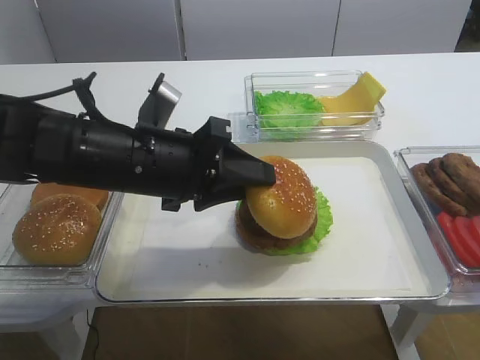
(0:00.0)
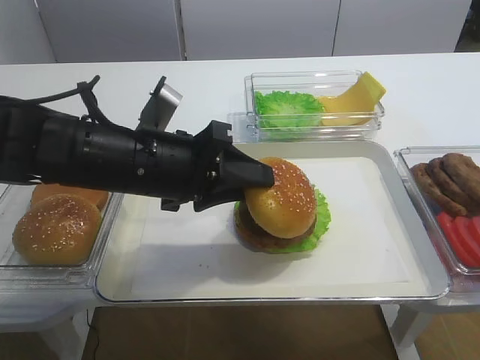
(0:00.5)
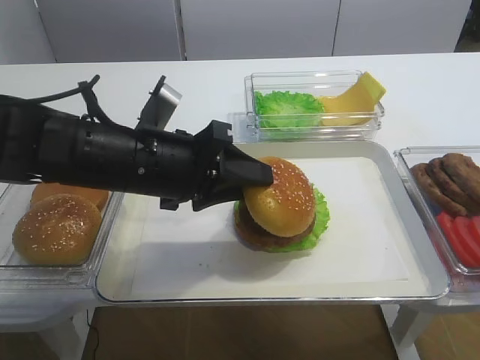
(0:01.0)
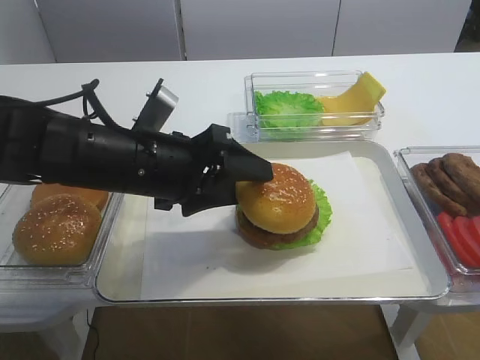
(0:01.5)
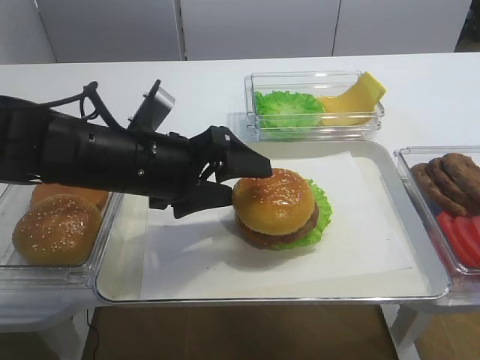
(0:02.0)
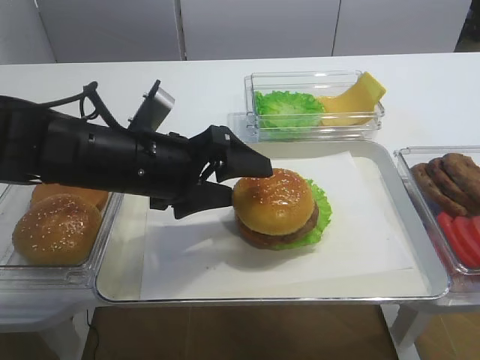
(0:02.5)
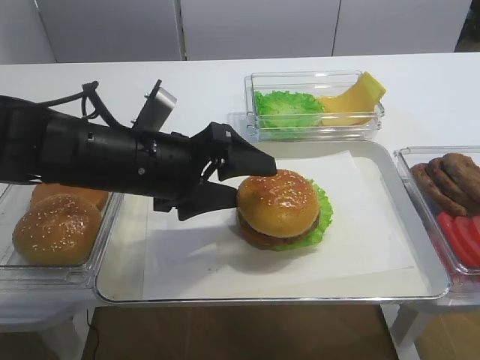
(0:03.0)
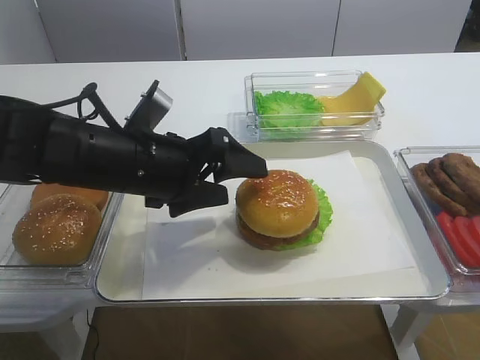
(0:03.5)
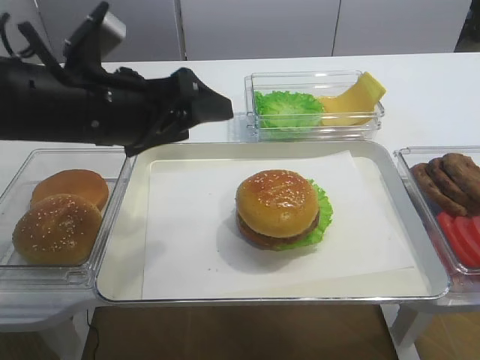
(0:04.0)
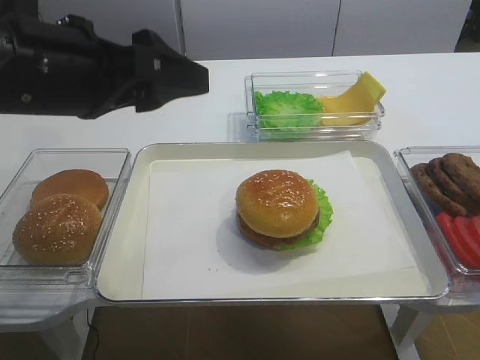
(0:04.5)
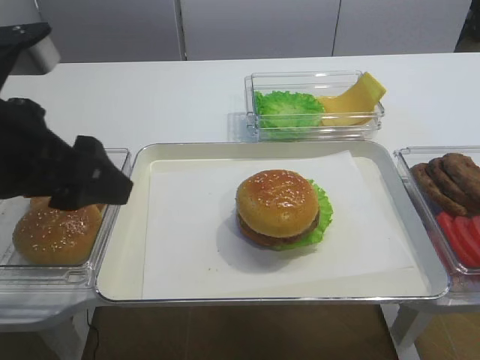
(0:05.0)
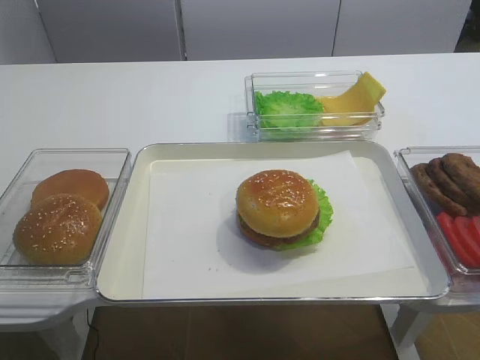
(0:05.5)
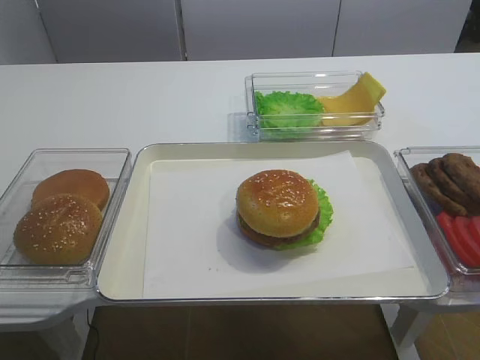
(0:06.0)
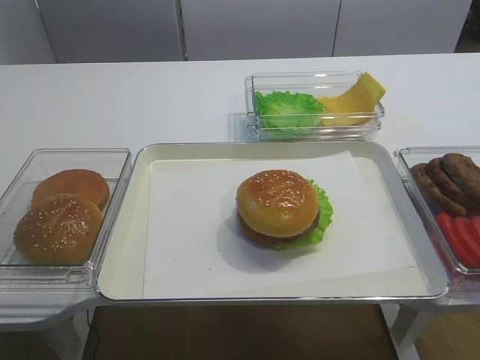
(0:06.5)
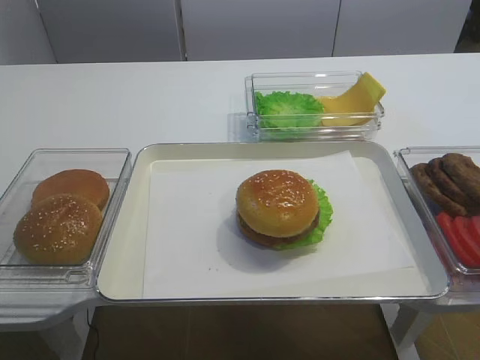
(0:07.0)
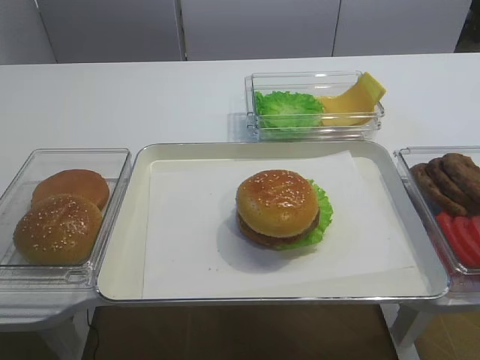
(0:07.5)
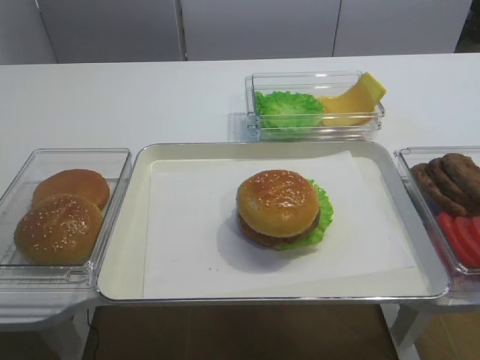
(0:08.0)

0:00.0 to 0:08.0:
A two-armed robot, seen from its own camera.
Step, 0:00.0 to 0:03.5: Place the hamburger lid on the cutlet slice with the left gripper.
0:00.0 to 0:02.0: The left gripper opens up.
0:02.0 to 0:04.0: The left gripper is displaced upward by roughly 5 cm.
0:04.0 to 0:06.0: The left gripper heads backward and to the left, covering roughly 30 cm.

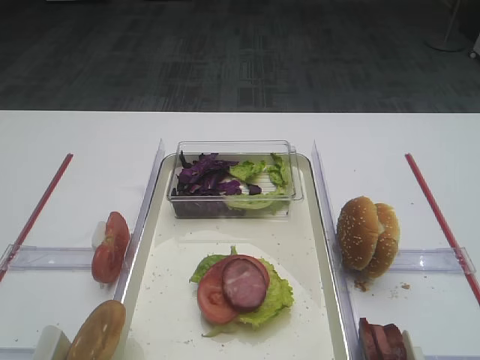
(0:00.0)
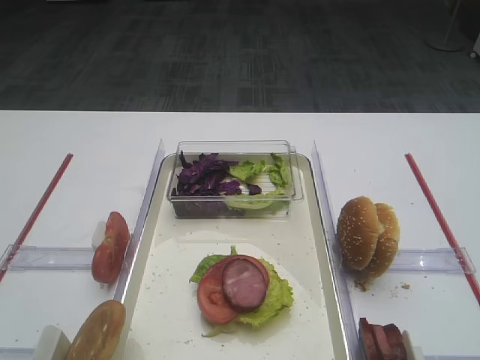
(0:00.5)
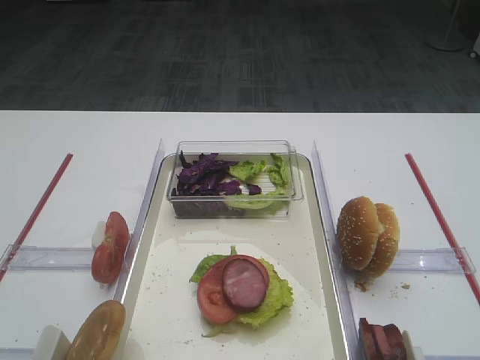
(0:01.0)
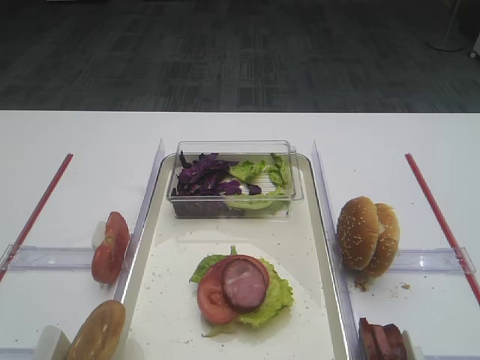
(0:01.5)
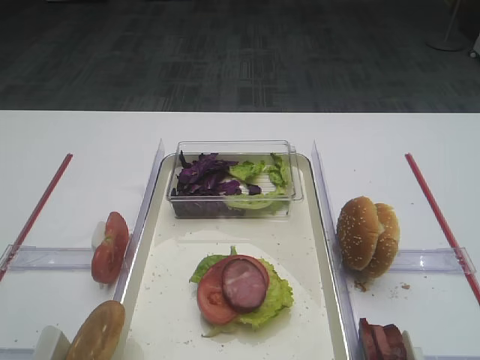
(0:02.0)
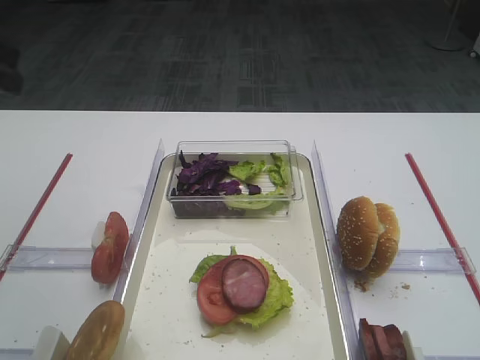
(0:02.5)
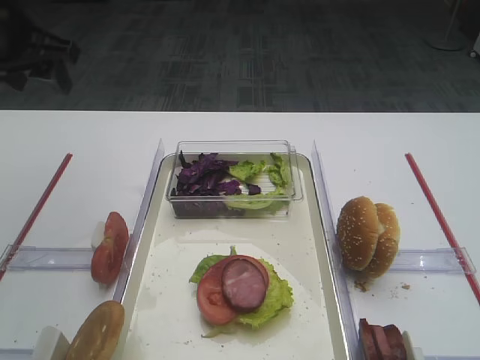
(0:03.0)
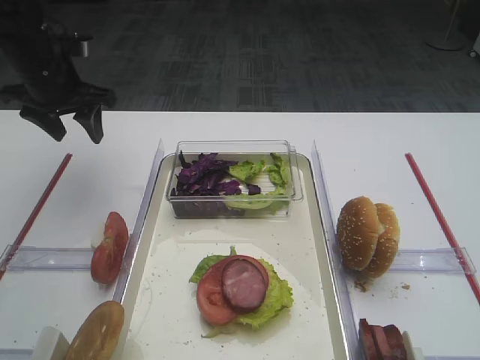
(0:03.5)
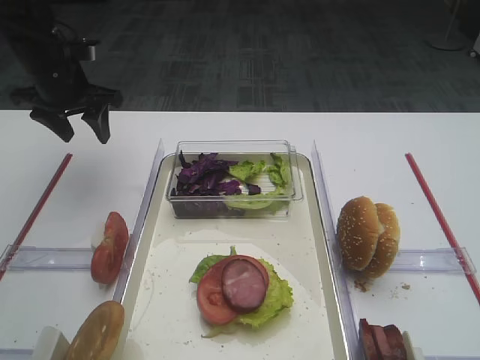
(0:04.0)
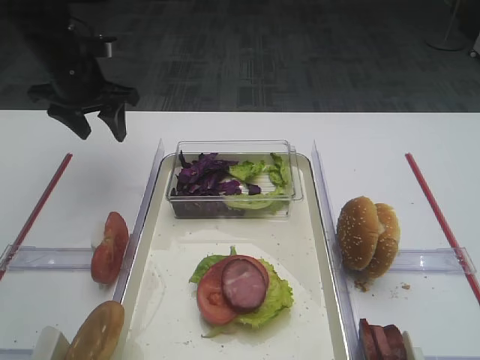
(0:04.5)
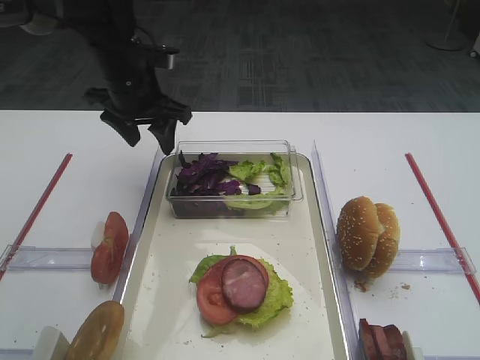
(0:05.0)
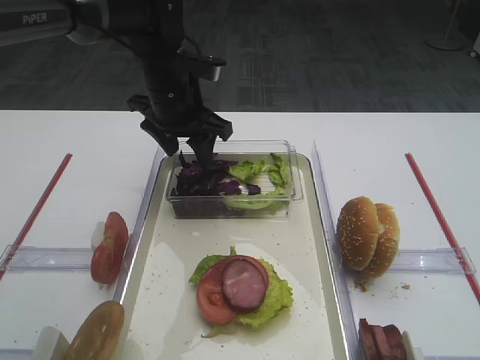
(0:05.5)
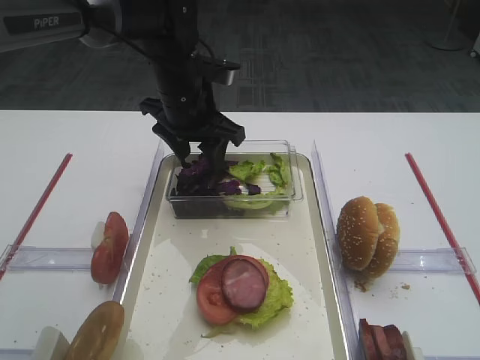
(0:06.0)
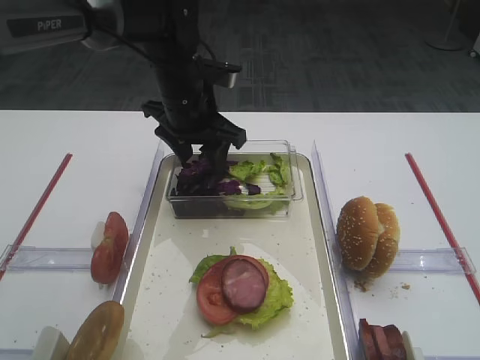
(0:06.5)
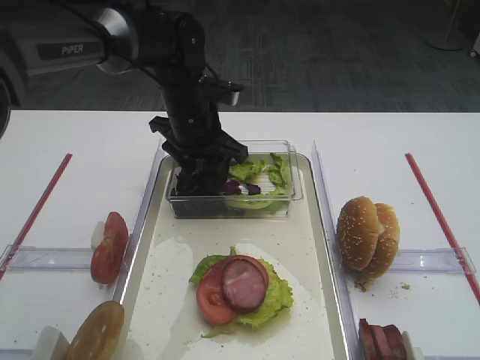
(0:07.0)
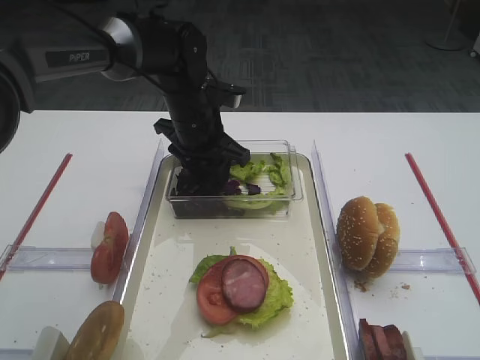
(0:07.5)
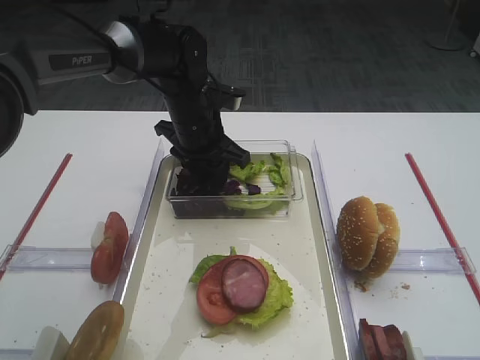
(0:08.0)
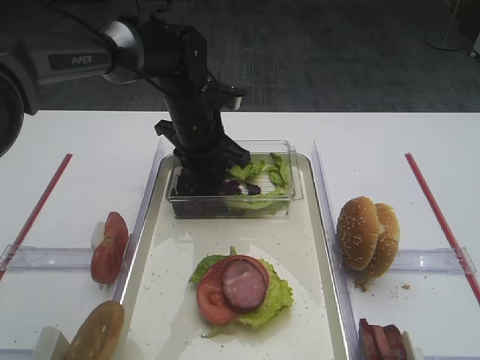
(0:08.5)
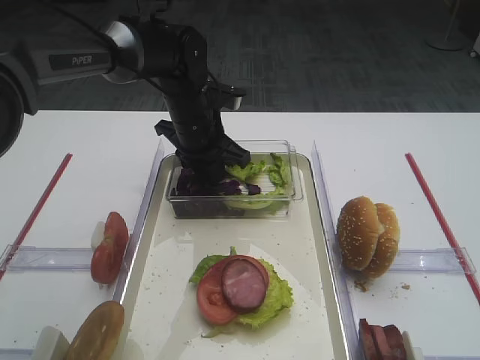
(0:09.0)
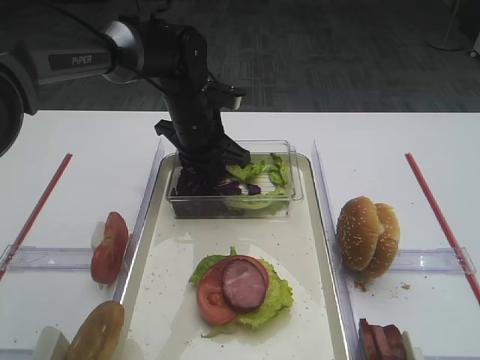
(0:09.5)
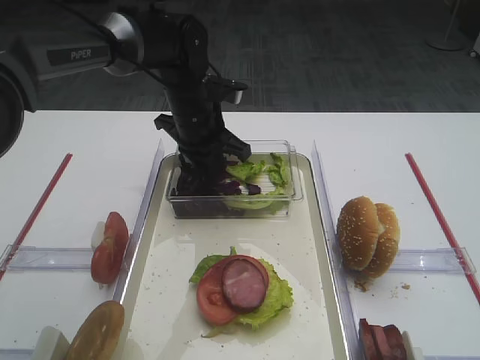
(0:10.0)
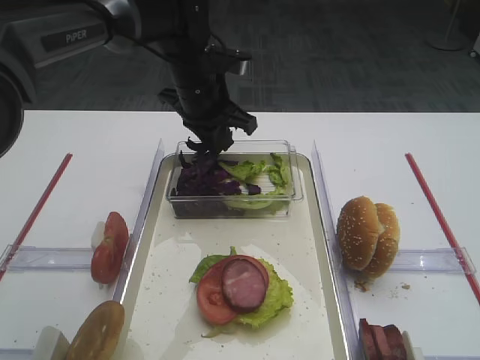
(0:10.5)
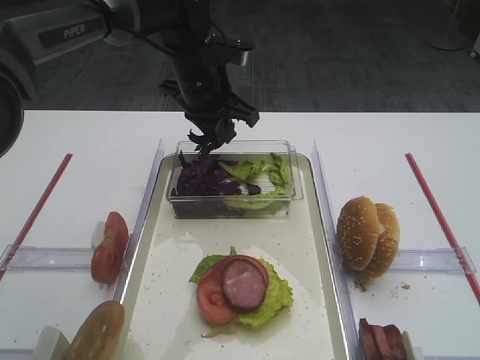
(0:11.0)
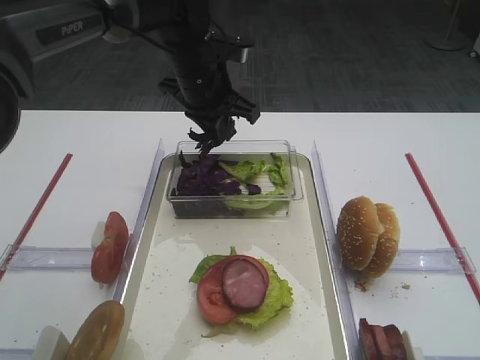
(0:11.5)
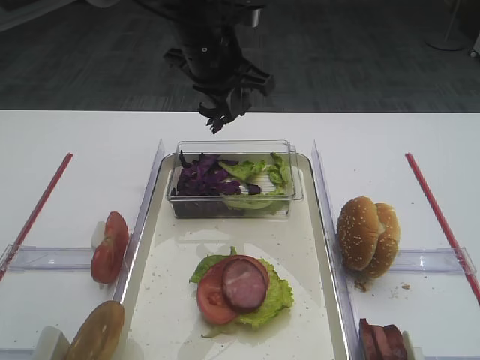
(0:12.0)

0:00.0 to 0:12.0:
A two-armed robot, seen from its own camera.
Step, 0:00.0 to 0:10.5: Pick up the purple cabbage with the left gripper.
0:02.0 to 0:04.0: The left gripper is displaced forward by about 35 cm.
0:04.0 to 0:06.0: The left gripper travels to the right by about 20 cm.
0:06.0 to 0:08.0: The left gripper goes approximately 5 cm downward.
0:08.0 to 0:10.0: The left gripper closes.
0:10.0 to 0:12.0: The left gripper travels upward by some 10 cm.

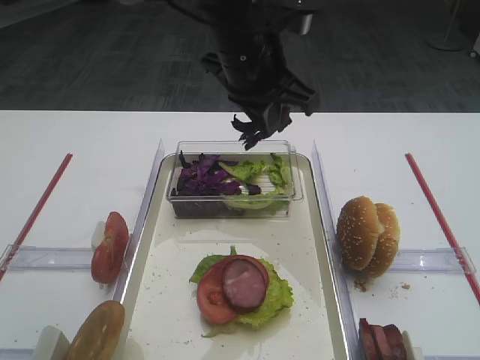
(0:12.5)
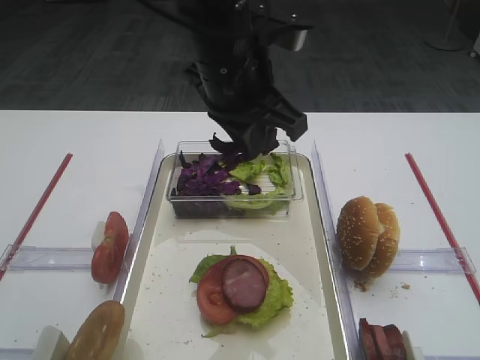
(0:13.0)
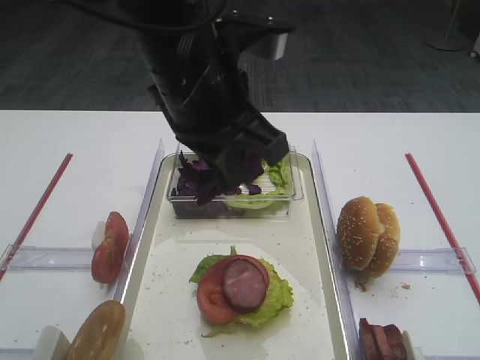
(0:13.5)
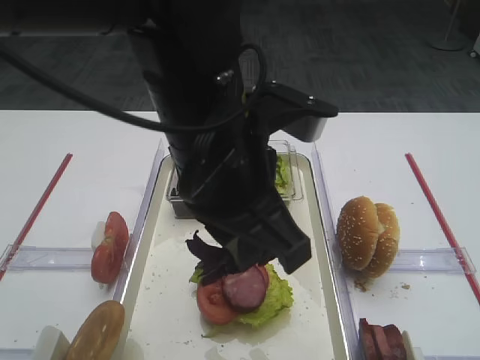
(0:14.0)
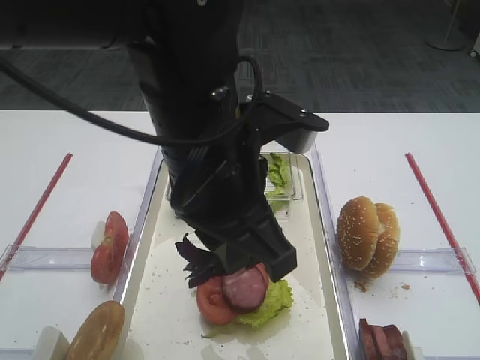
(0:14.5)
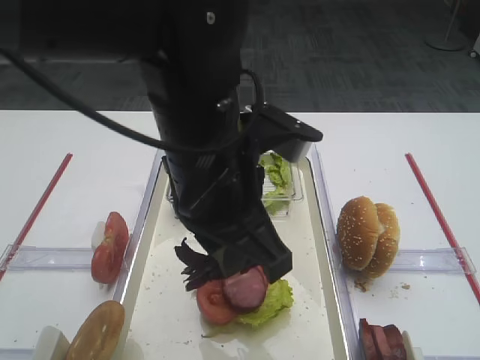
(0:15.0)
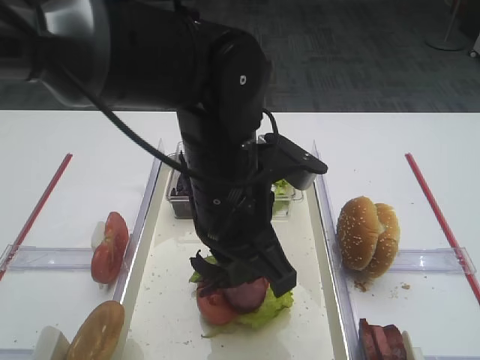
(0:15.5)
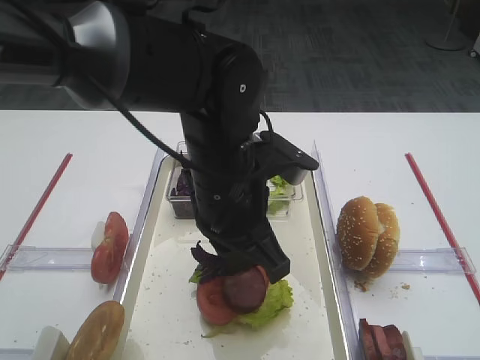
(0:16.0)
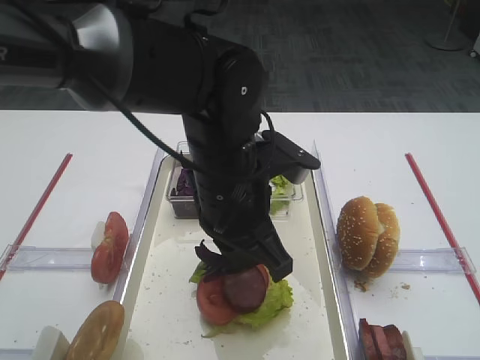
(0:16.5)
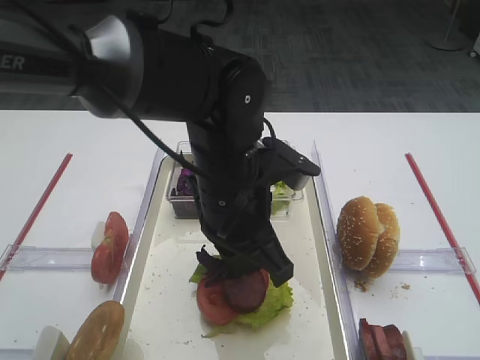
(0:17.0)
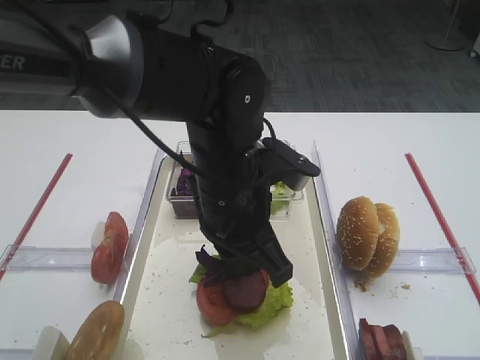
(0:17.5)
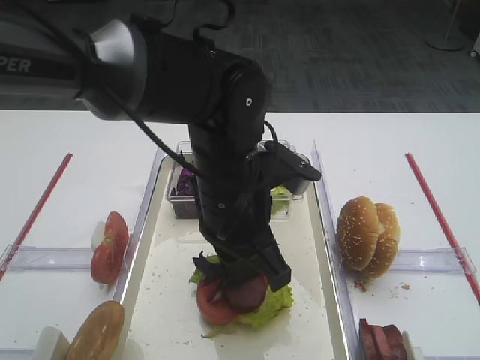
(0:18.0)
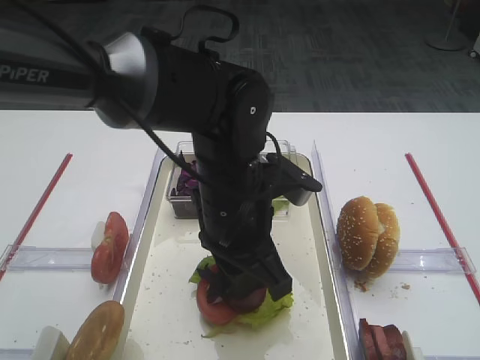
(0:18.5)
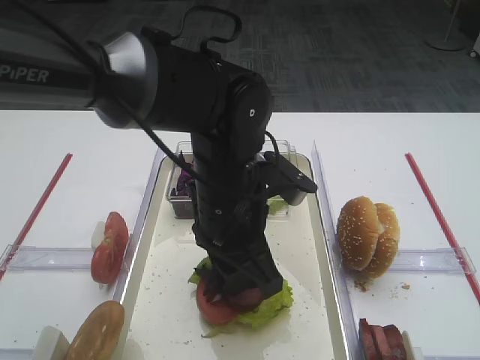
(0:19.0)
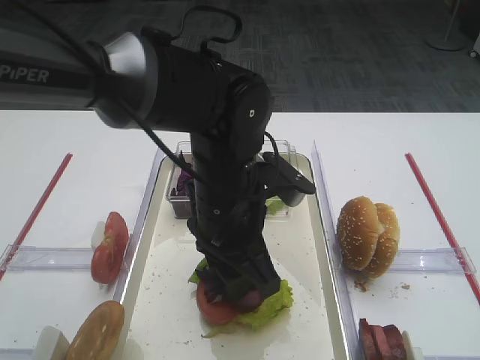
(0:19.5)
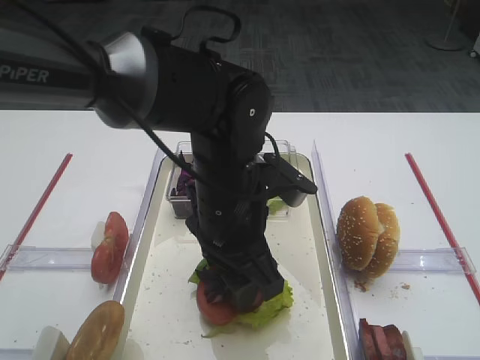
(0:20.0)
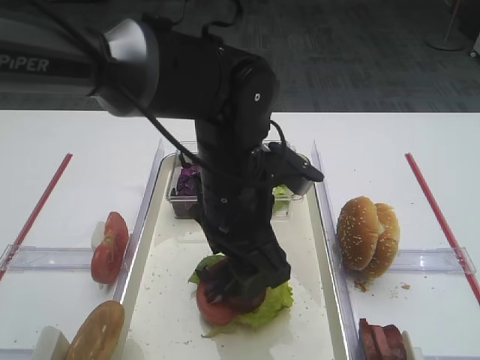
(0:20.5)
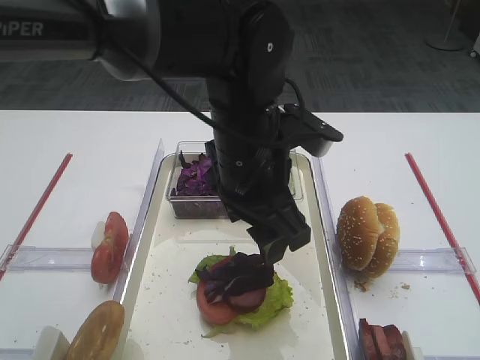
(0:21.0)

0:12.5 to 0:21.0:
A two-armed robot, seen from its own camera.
Step, 0:12.5 to 0:20.5: Place the purple cabbage on the cutlet with the left gripper.
0:12.5 to 0:14.5: The left gripper is displaced backward by approximately 15 cm.
0:14.5 to 0:16.5: The left gripper goes approximately 5 cm downward.
0:16.5 to 0:19.0: The left gripper opens.
0:19.0 to 0:21.0: The left gripper shifts by approximately 5 cm, and opens.
